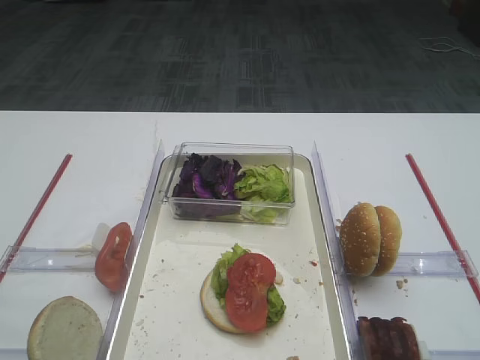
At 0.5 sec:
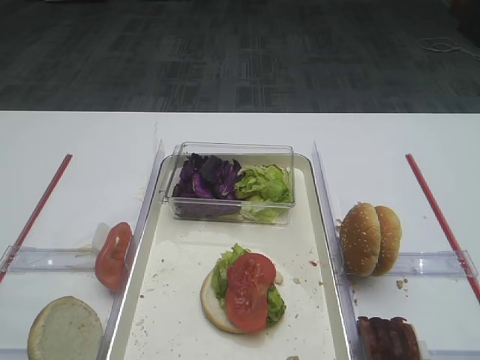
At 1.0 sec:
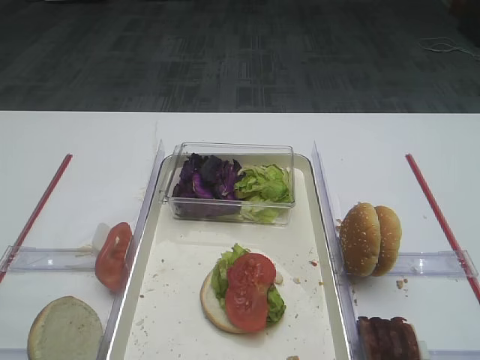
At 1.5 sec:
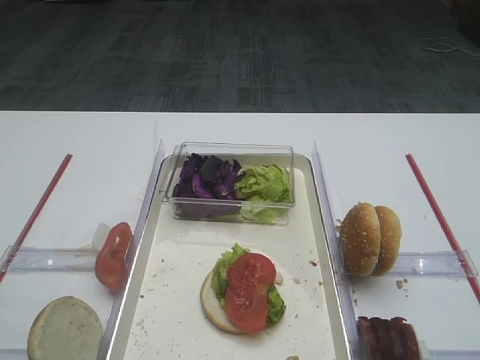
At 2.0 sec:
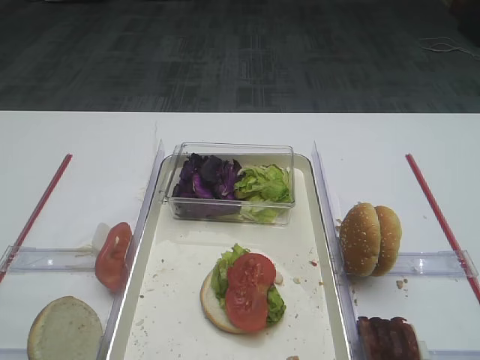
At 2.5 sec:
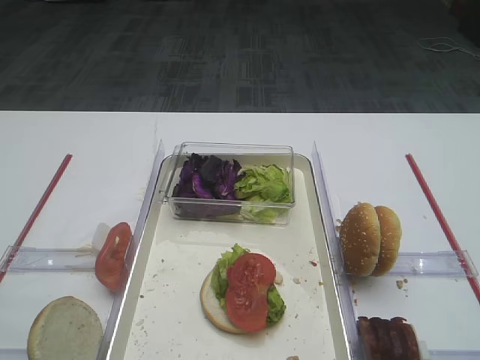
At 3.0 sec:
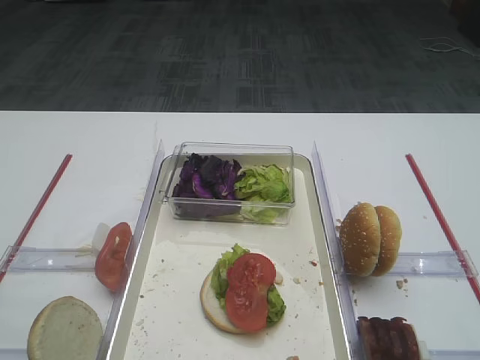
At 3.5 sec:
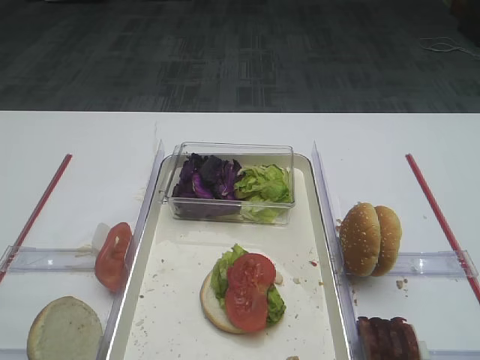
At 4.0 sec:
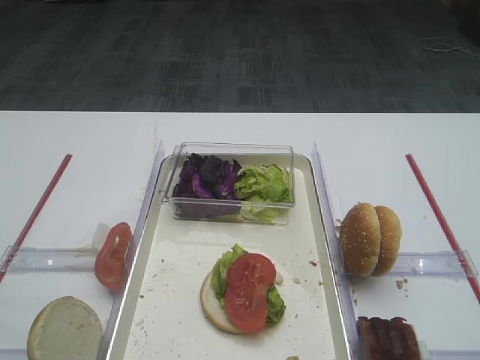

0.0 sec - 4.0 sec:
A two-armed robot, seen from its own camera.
2.0 sec - 4.0 sec: Both grippers stay put.
